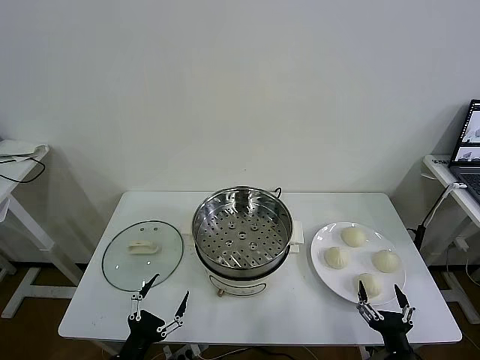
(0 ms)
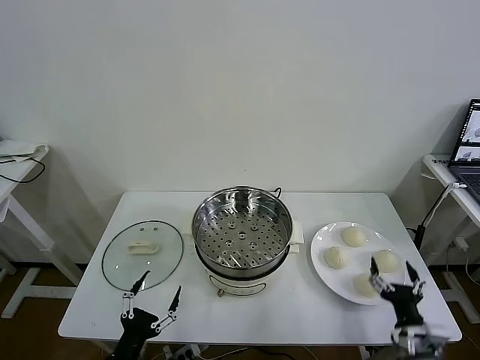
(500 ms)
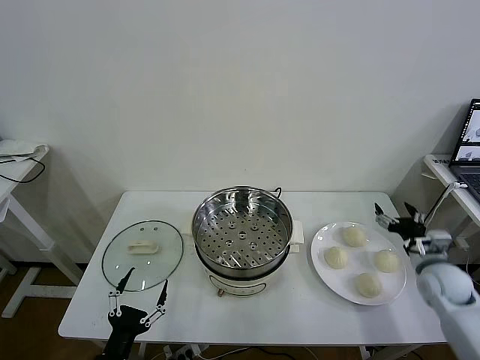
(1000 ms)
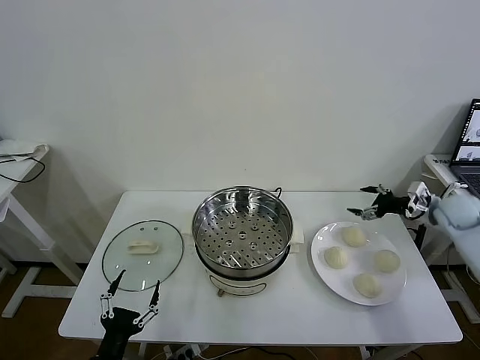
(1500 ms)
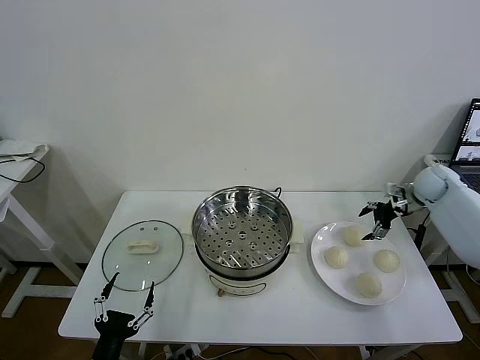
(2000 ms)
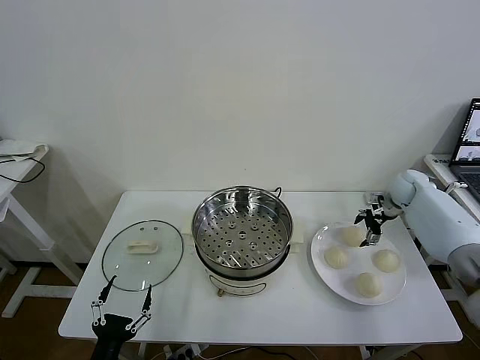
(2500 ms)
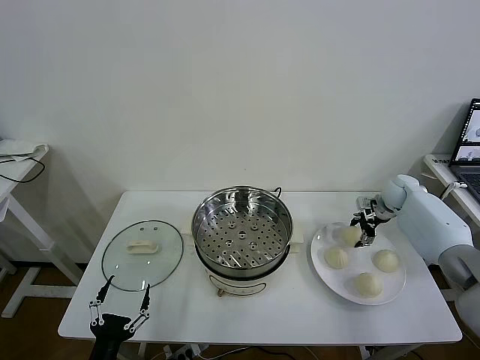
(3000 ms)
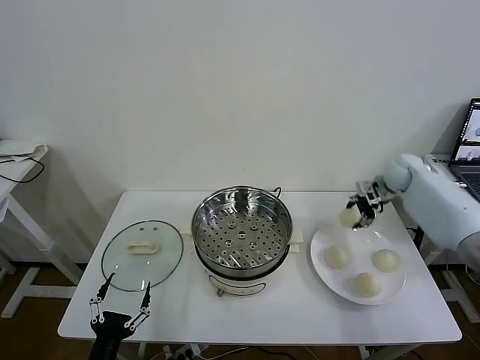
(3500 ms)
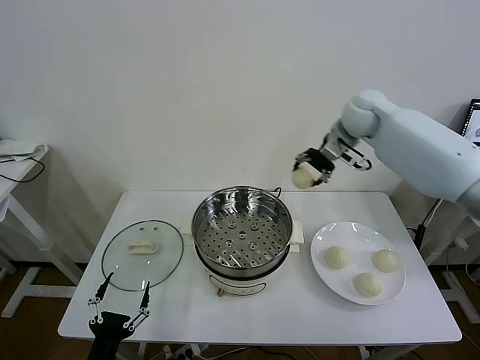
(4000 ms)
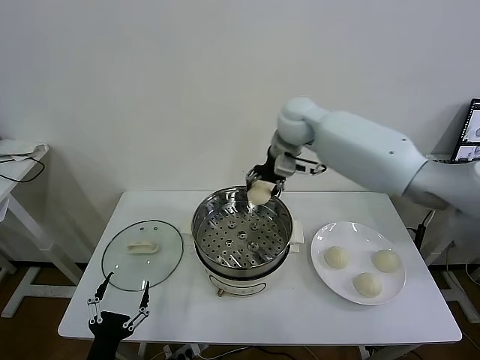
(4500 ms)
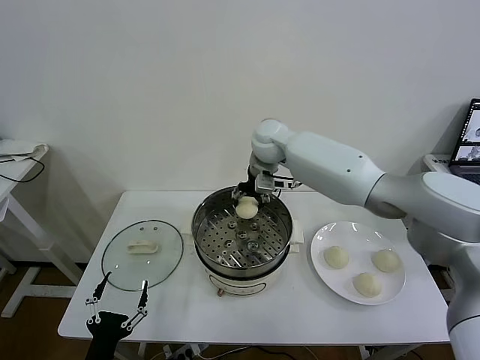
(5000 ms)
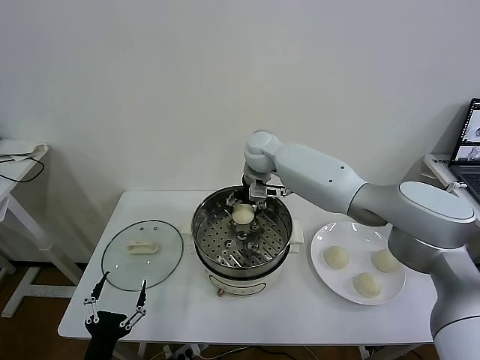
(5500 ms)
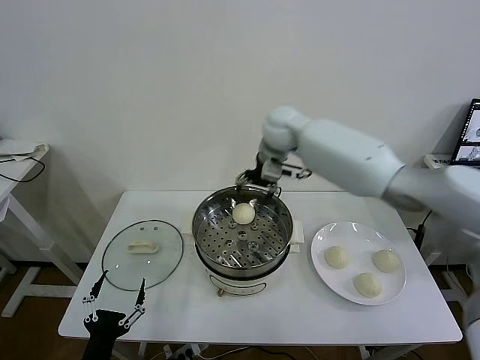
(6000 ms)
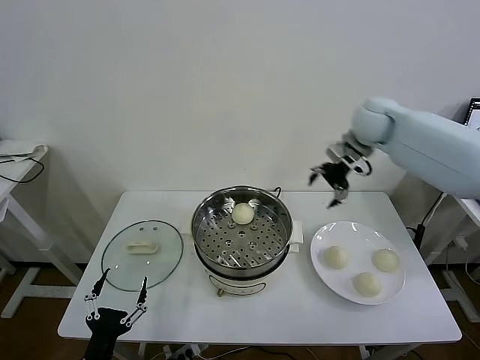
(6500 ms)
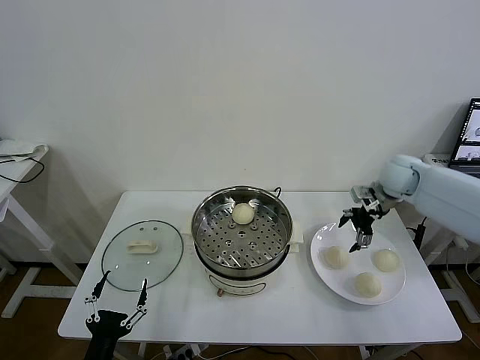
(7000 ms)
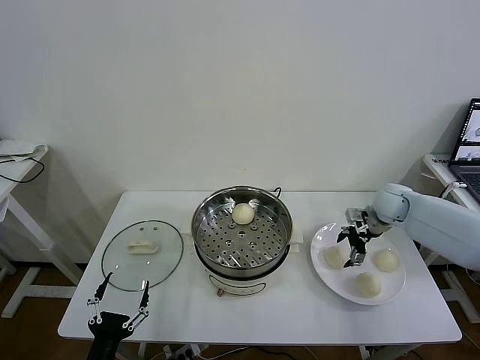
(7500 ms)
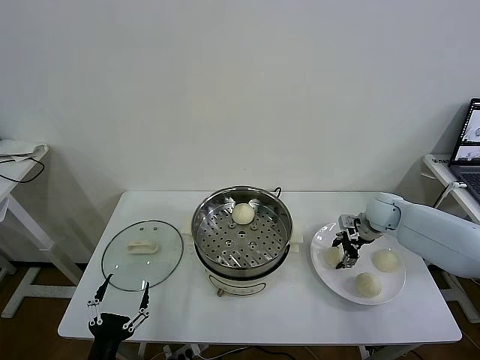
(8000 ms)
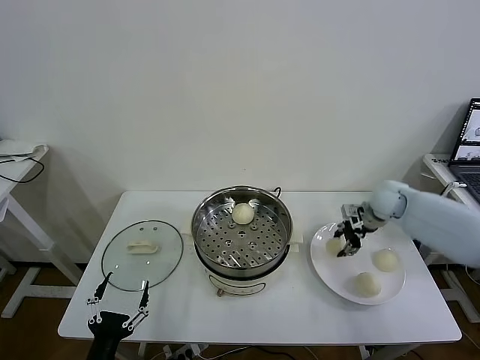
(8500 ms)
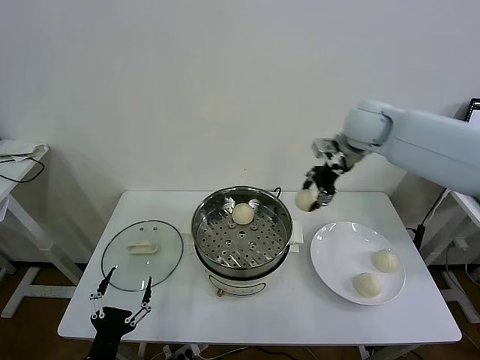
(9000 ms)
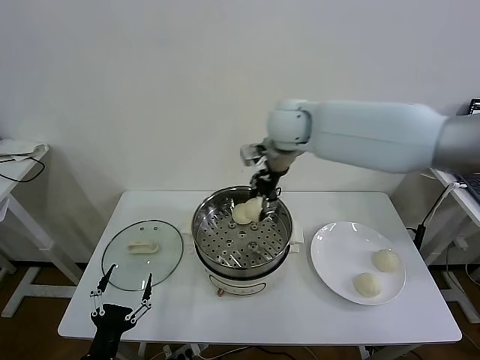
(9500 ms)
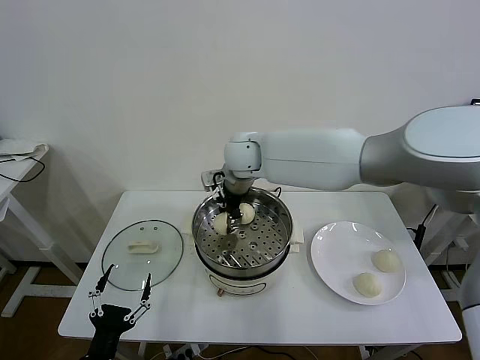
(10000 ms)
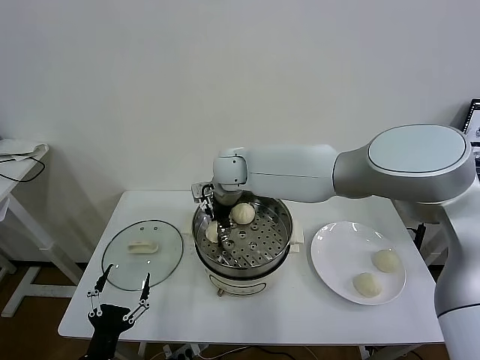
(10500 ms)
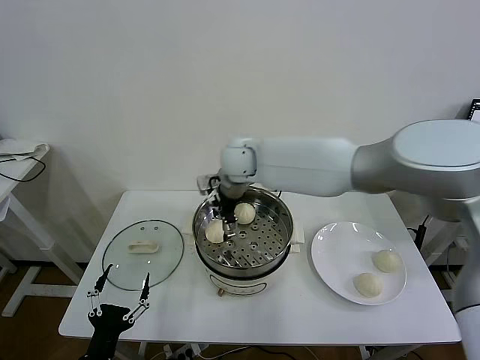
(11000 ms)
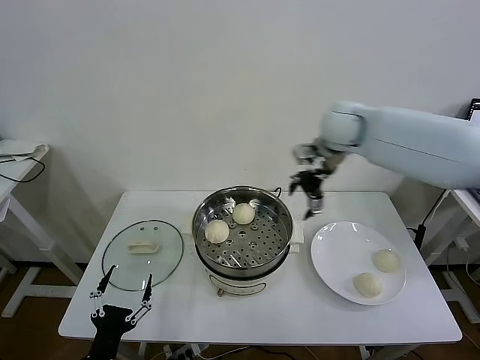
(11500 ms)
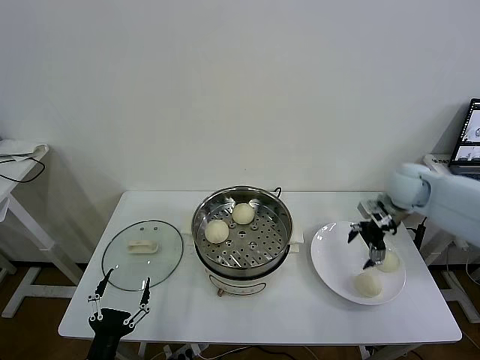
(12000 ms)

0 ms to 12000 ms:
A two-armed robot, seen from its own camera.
Task of the whole recording: take steamed baozi put them in steamer then cover it.
Step, 0 ms to 3000 ms: Grasp the baozi in the plate with right gripper.
Step, 3500 ms to 5500 ms: Place the baozi on the steamer with right gripper.
Step, 6000 ms to 8000 ms: Grasp the baozi in the plate with right gripper.
Step, 8500 ms to 10500 ms: Place the baozi on the steamer with right gripper.
2000 ms to 4000 ms: The right gripper heads to the left and upward, covering roughly 30 cm, and closes.
4000 ms to 6000 ms: The right gripper is displaced to the left by about 10 cm, and opens.
6000 ms to 8000 ms: The right gripper is displaced to the right and downward by about 35 cm, and closes up.
8000 ms to 10000 ms: The right gripper goes about 40 cm to the left and upward.
10000 ms to 12000 ms: The right gripper moves to the right, some 40 cm, and opens.

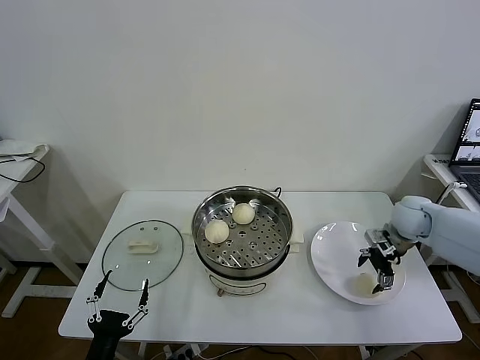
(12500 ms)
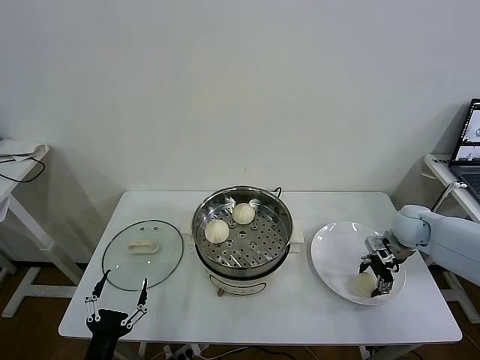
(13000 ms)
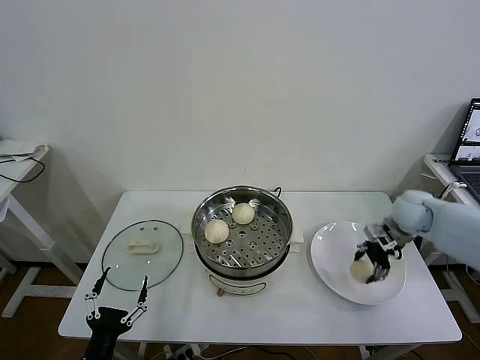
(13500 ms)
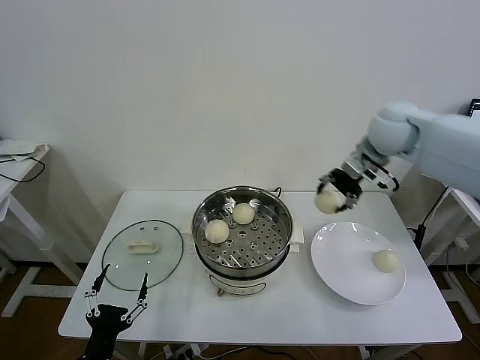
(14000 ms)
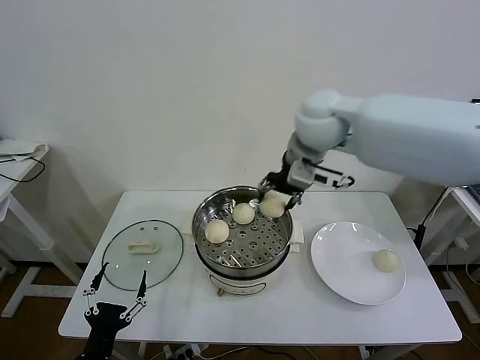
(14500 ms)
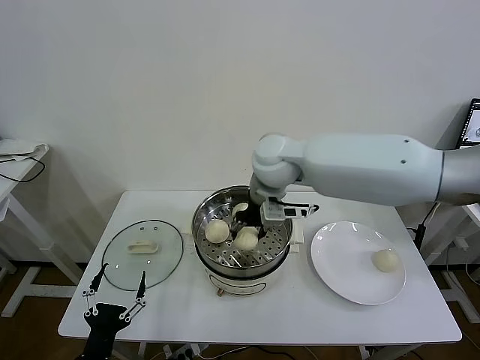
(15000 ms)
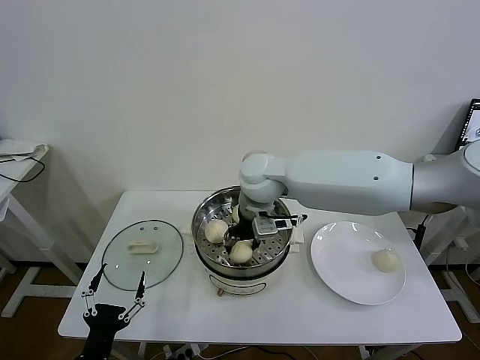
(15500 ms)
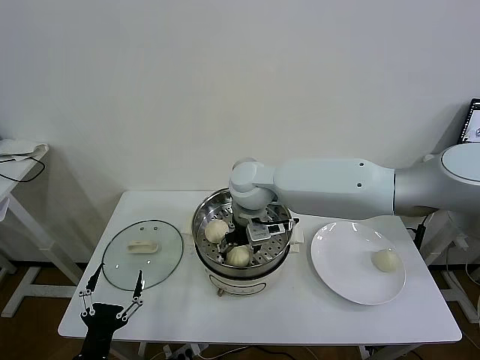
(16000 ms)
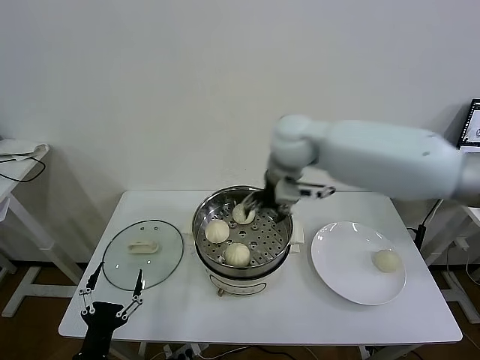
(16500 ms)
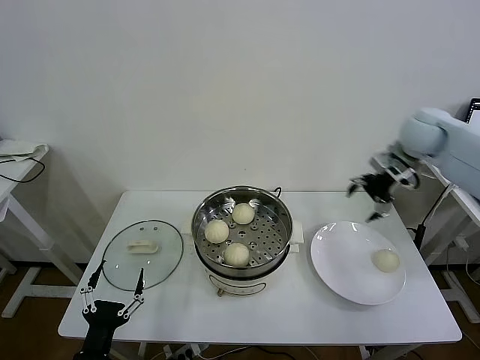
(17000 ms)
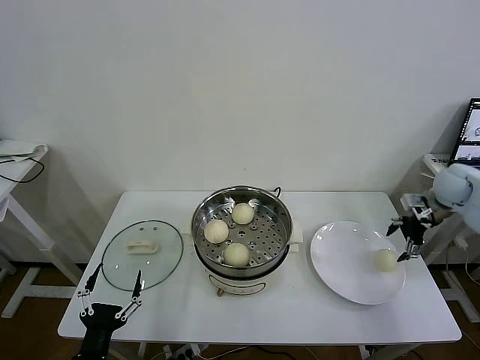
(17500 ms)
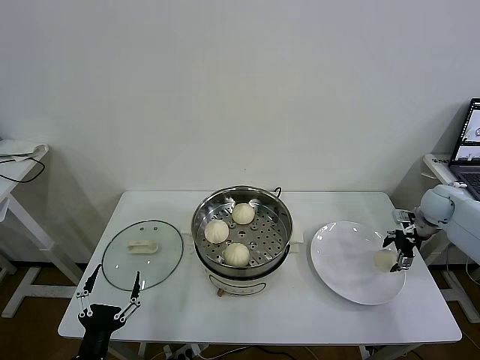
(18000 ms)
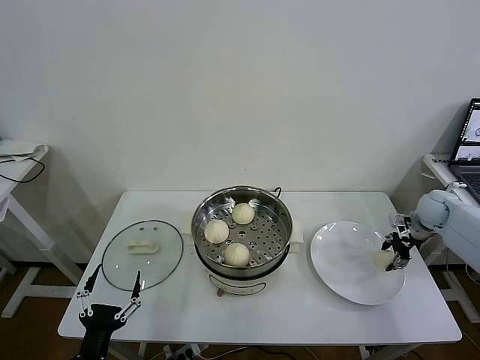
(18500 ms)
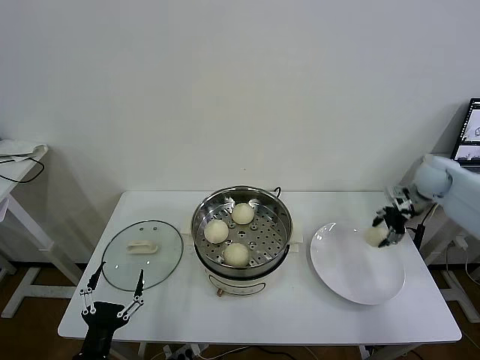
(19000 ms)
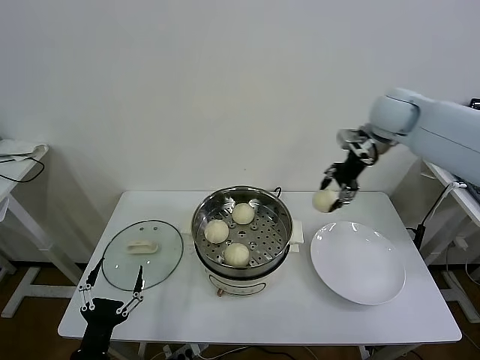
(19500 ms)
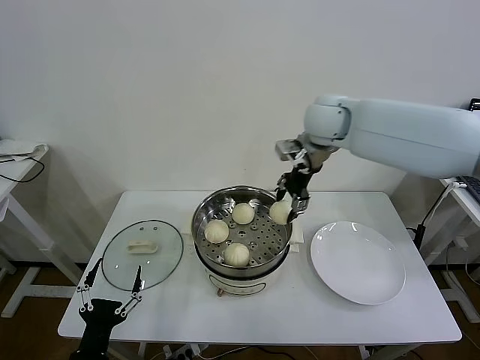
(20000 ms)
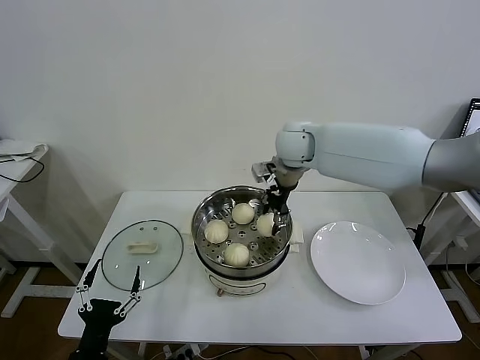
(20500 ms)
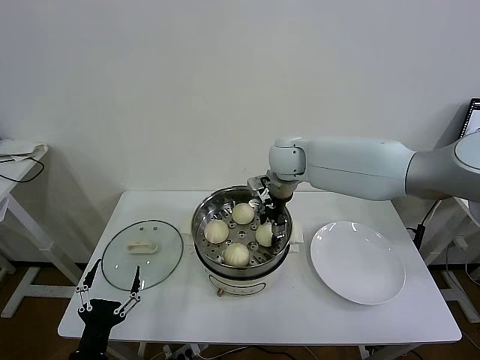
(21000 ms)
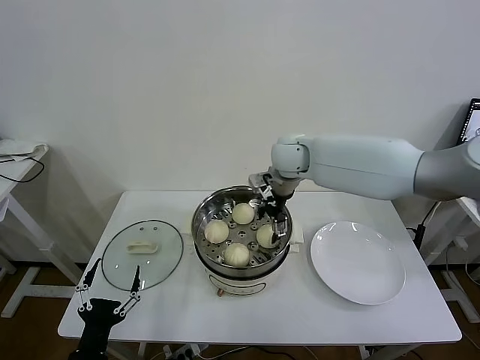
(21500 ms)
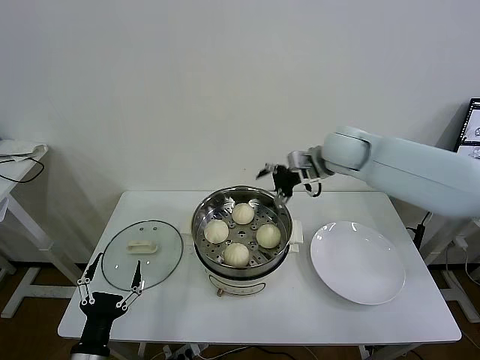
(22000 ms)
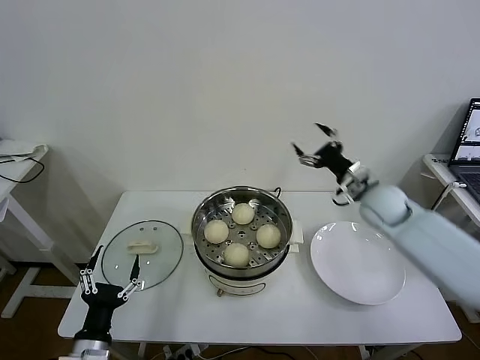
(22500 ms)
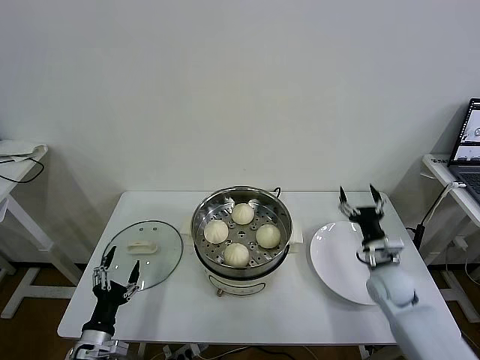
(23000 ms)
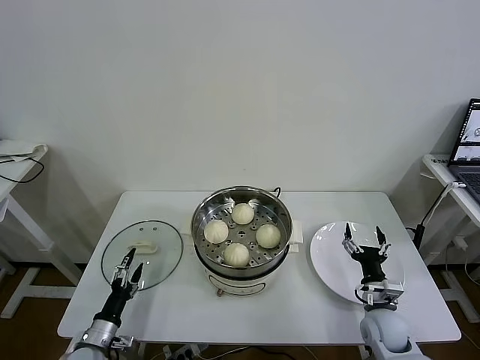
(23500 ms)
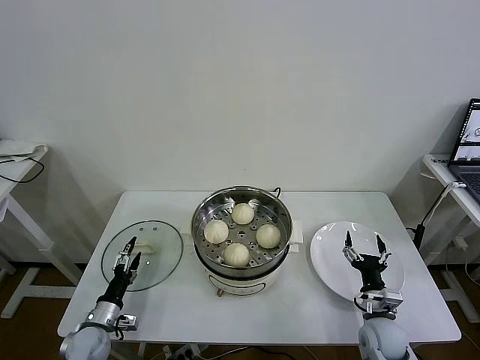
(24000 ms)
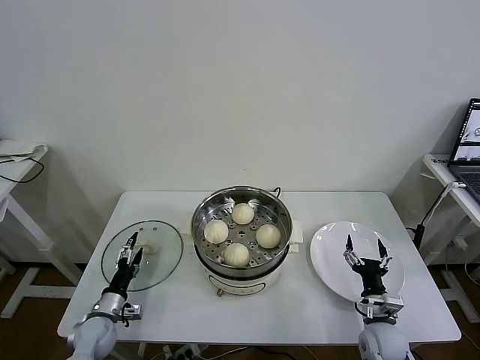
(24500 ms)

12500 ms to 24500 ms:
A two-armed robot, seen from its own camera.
Task of the whole recording: take steamed baozi put them in steamer then cover it.
Step, 13500 ms to 16000 ms: Place the baozi on the steamer with right gripper.
Step, 16500 ms to 18500 ms: Grasp the baozi in the plate with right gripper.
Step, 19000 ms to 21500 ms: Place the baozi on the steamer with right gripper.
12500 ms to 14500 ms: The right gripper heads to the left and upward, covering approximately 35 cm, and closes up.
14500 ms to 16500 ms: The right gripper travels downward and back again, approximately 10 cm each way, and opens up.
16500 ms to 18500 ms: The right gripper is displaced to the right and downward by roughly 40 cm, and closes.
18500 ms to 20500 ms: The right gripper moves to the left and upward, approximately 40 cm.
20500 ms to 22500 ms: The right gripper travels to the right and downward by about 25 cm, and opens its fingers.
22500 ms to 24500 ms: The right gripper moves downward and backward, approximately 30 cm, while the left gripper is displaced forward, downward and to the left by some 20 cm.

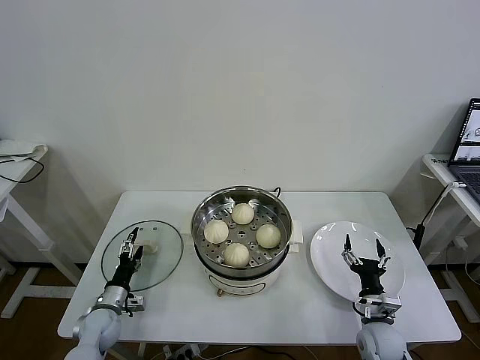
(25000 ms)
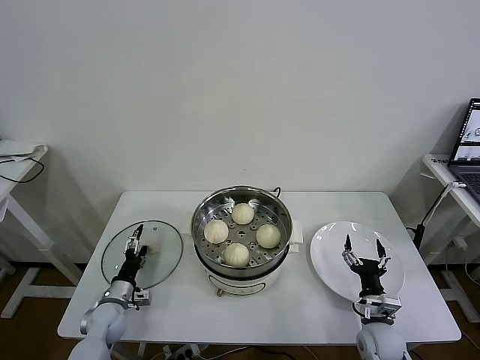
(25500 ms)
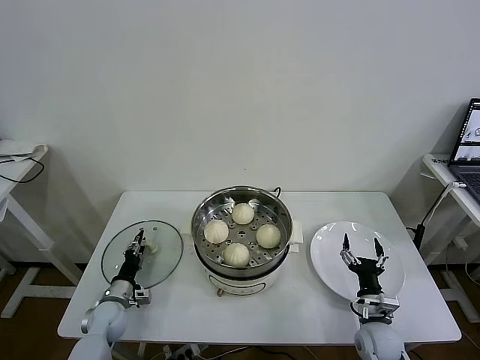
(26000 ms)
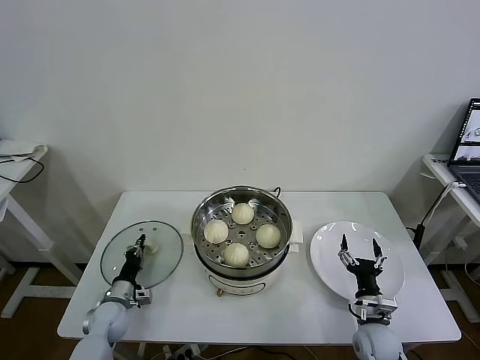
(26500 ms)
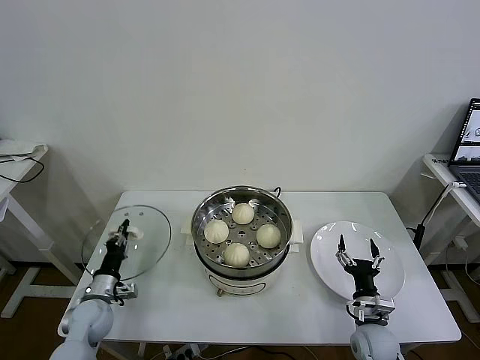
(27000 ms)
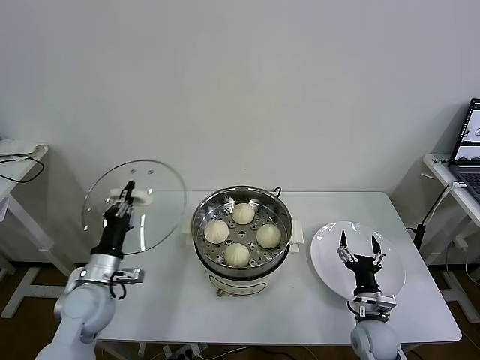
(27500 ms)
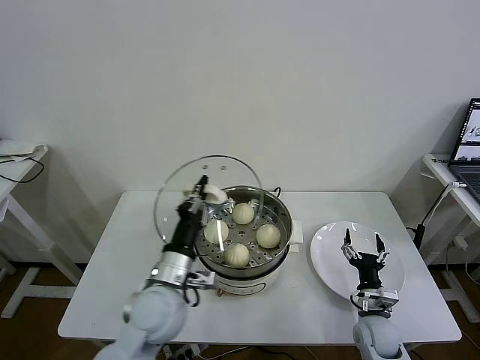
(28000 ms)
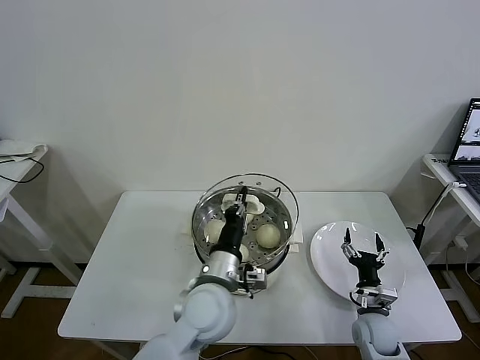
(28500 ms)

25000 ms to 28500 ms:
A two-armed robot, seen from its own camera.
Task of the whole recording: take steamed baozi put them in steamer then cover it.
25000 ms to 27000 ms: The left gripper closes up.
27000 ms to 28500 ms: The left gripper shifts roughly 35 cm to the right and upward.
